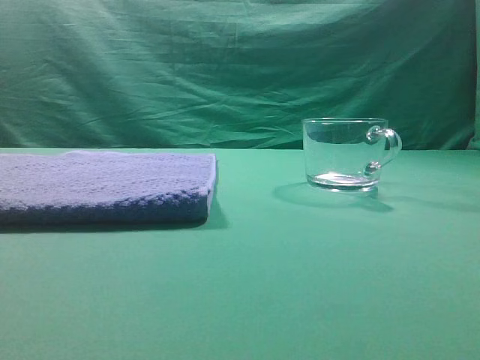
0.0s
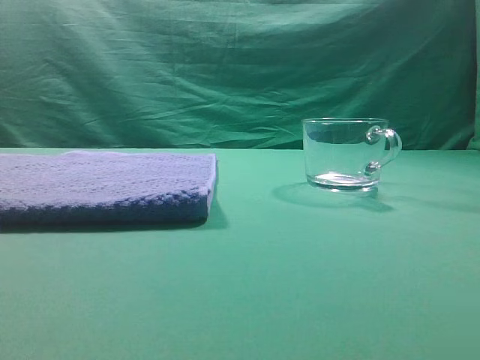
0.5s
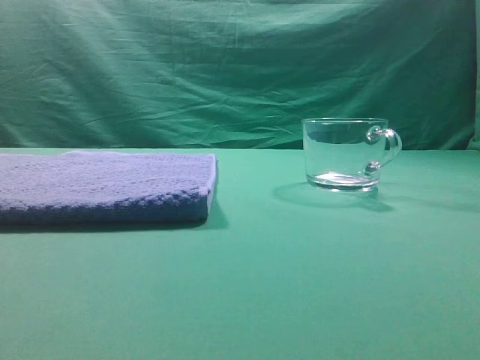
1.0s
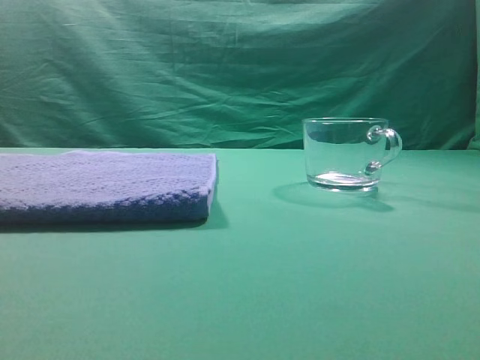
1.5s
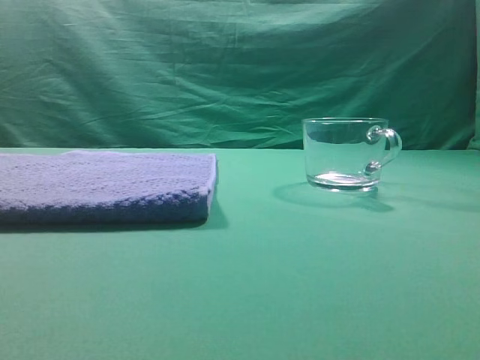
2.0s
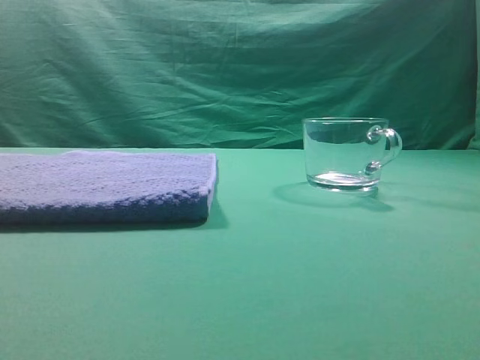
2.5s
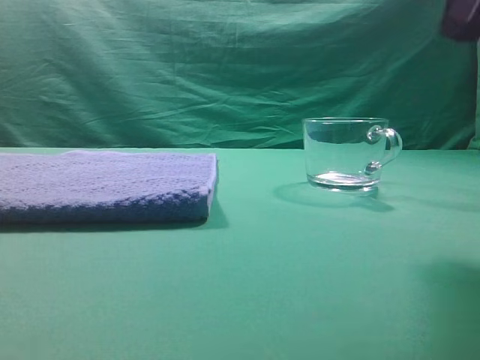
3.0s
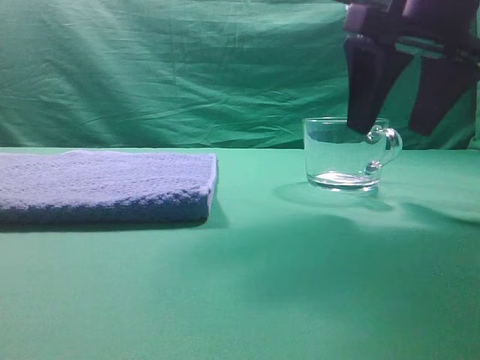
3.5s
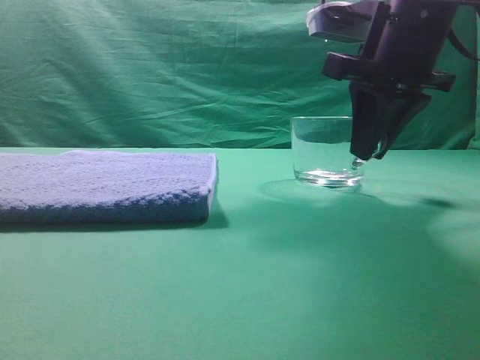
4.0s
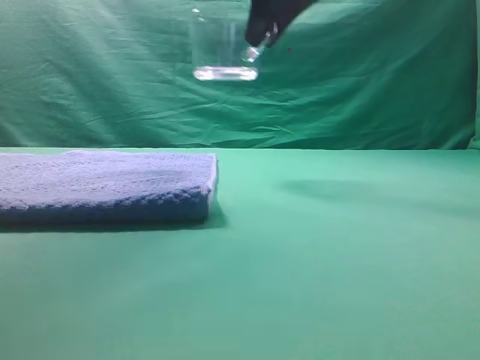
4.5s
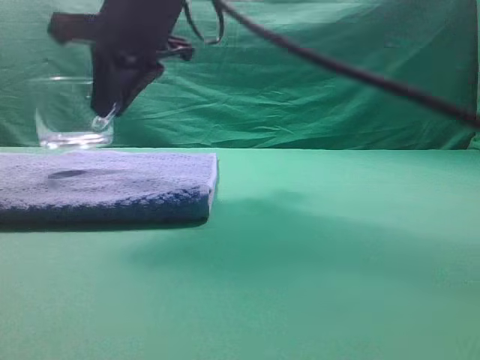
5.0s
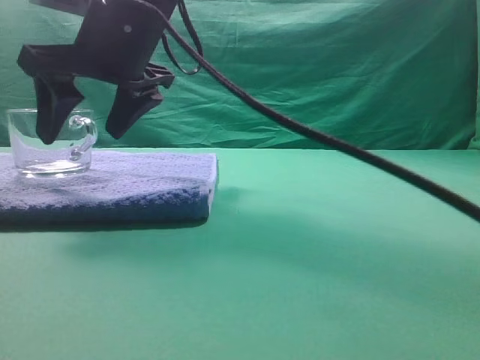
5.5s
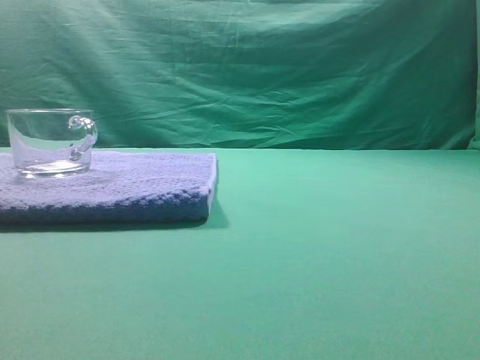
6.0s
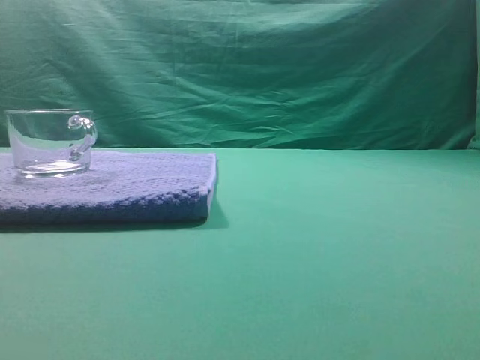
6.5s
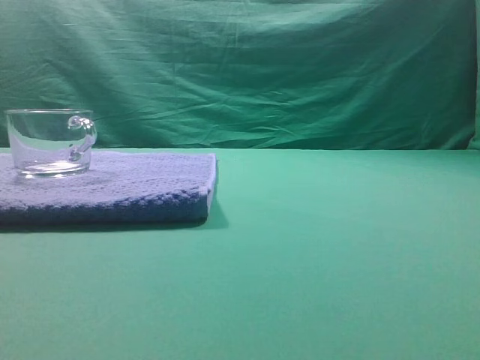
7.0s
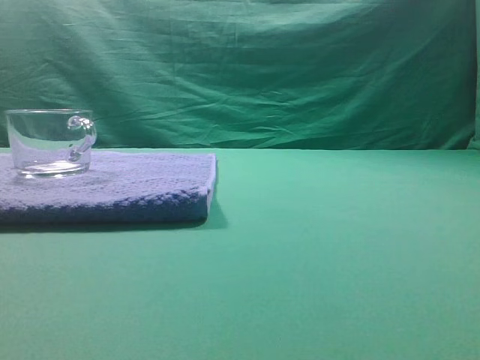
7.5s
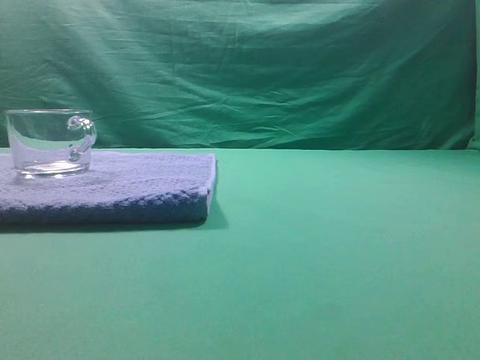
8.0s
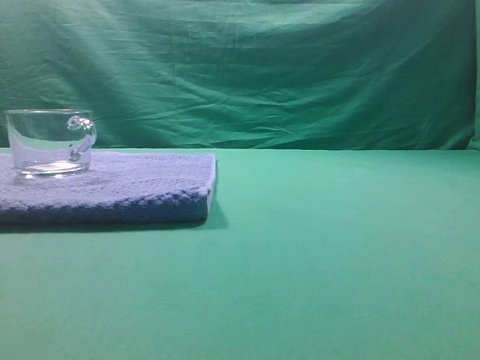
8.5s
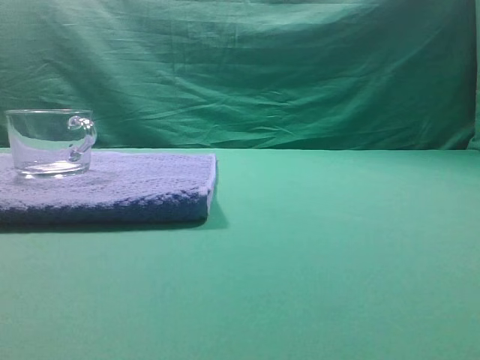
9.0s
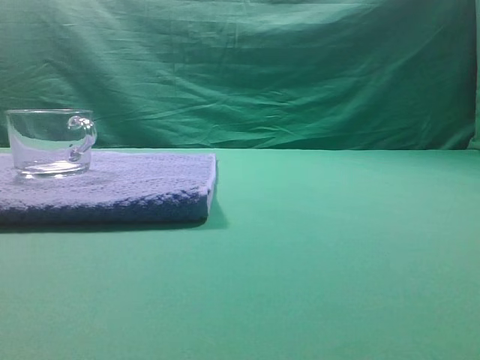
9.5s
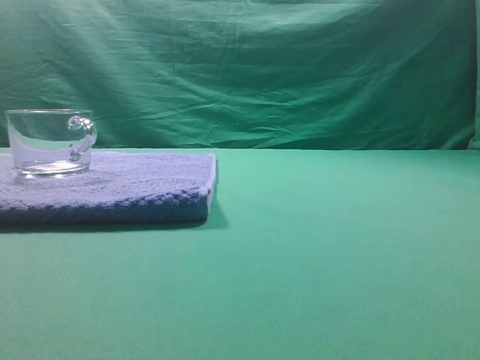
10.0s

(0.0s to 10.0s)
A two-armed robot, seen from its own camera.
Task of the whole recording: grasp the transparent glass cup and place it within the blue towel.
Step, 0.0s - 4.0s: Grasp the transparent glass cup.
Step, 4.5s - 5.5s: Place the glass cup on the blue zone.

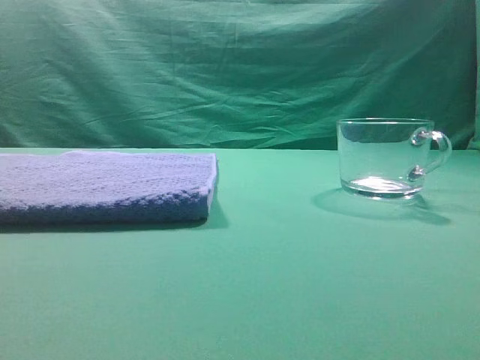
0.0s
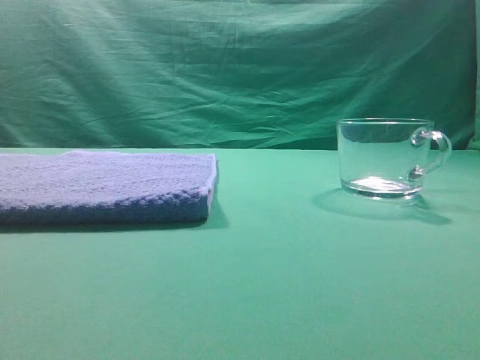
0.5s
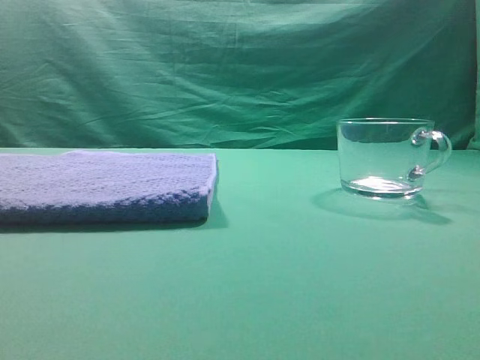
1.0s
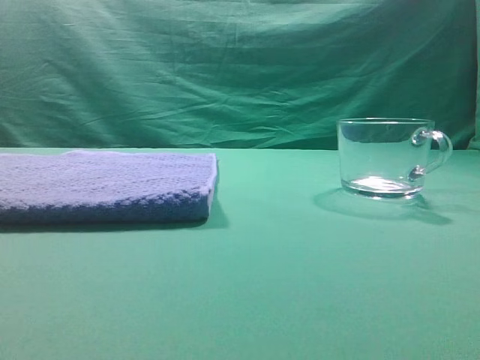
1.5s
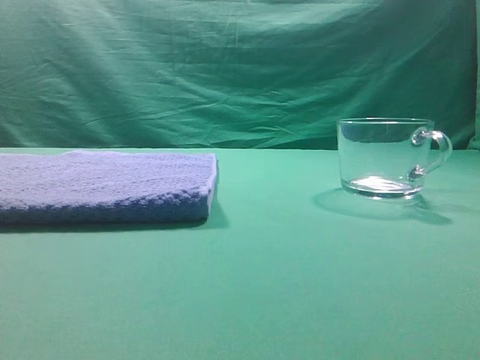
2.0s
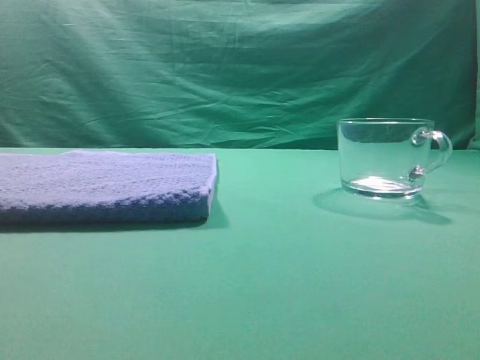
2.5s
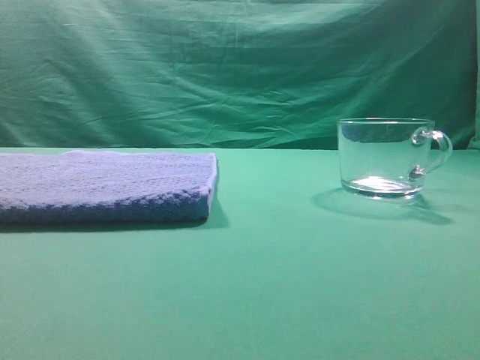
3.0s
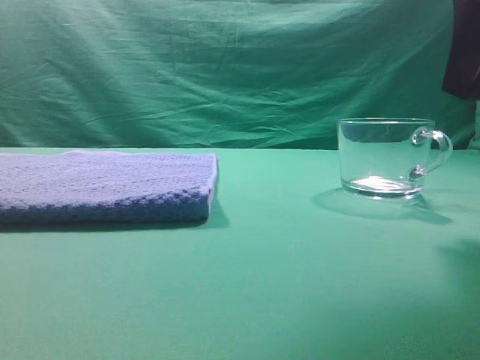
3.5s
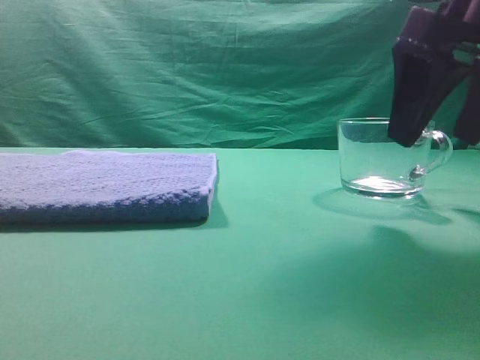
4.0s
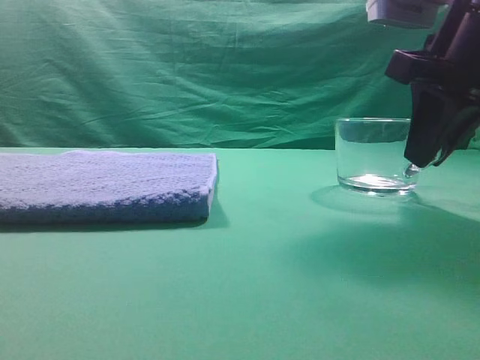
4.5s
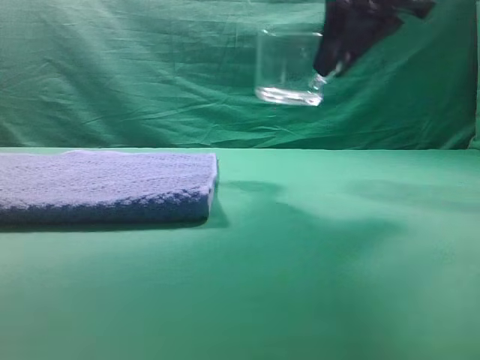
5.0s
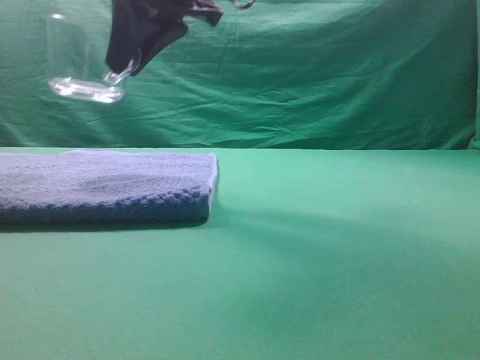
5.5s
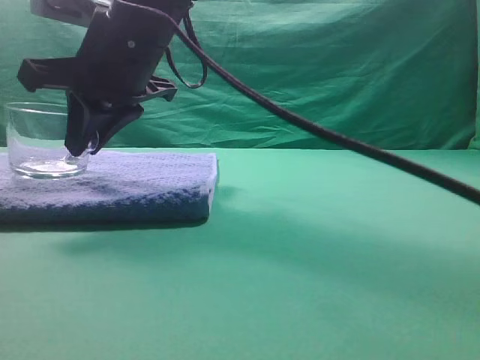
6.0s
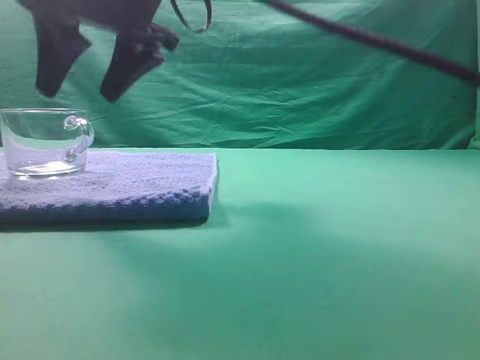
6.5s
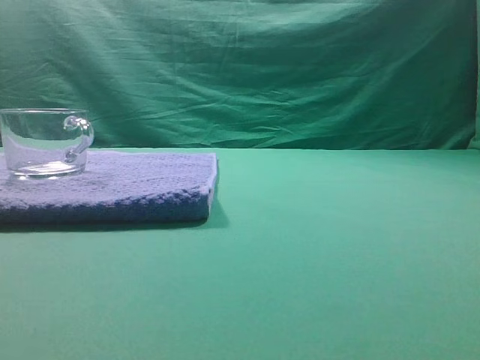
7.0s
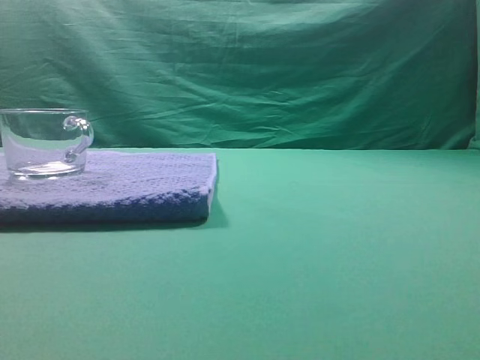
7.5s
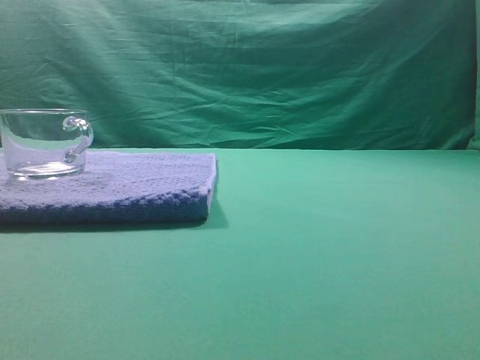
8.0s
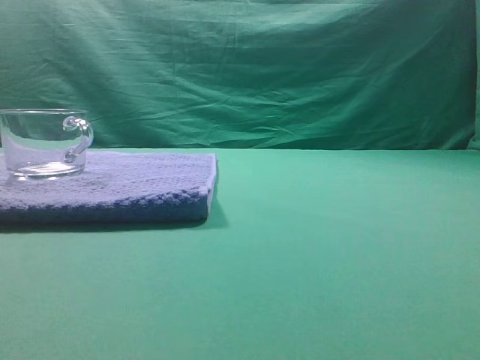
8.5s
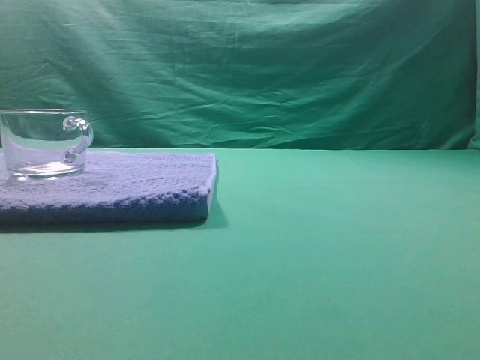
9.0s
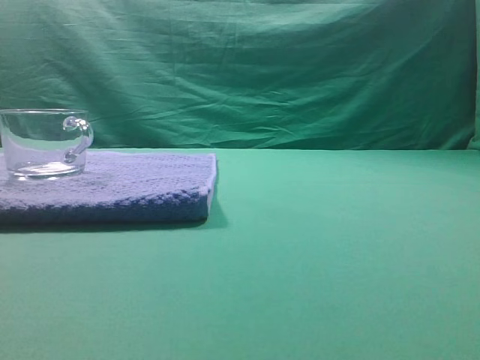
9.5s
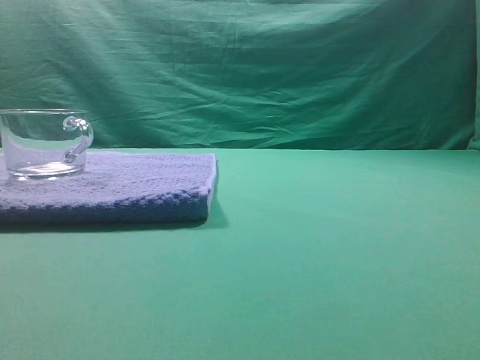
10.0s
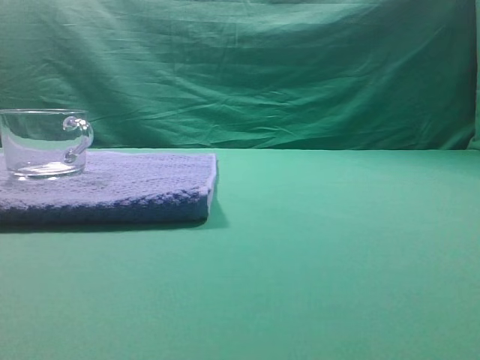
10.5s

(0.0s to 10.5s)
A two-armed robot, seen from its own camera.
Task of the whole recording: grasp the transparent glass cup and place it within the blue towel.
Step, 0.0s - 4.5s: Grasp the transparent glass cup.
Step, 5.0s - 6.0s: Place the glass cup on the blue zone.
